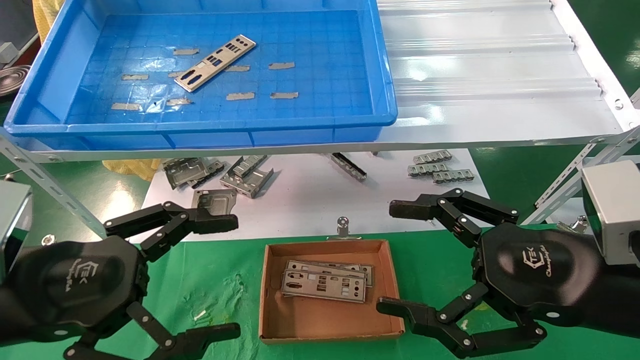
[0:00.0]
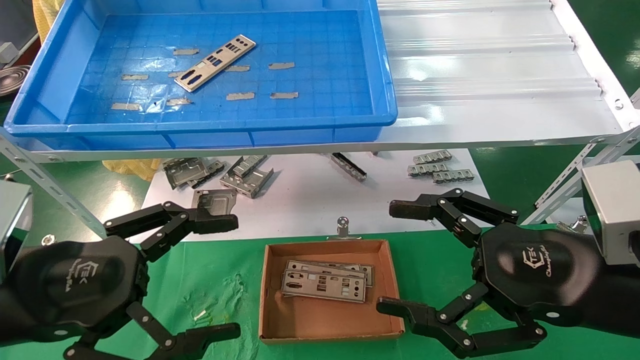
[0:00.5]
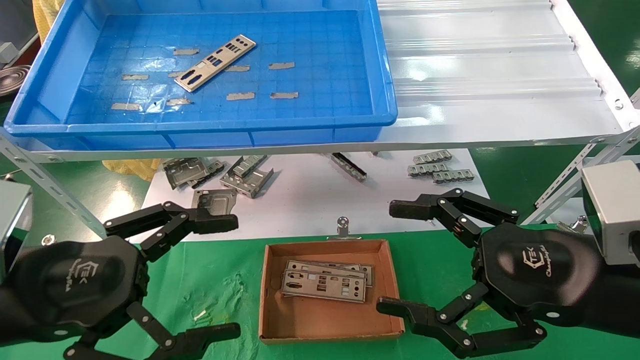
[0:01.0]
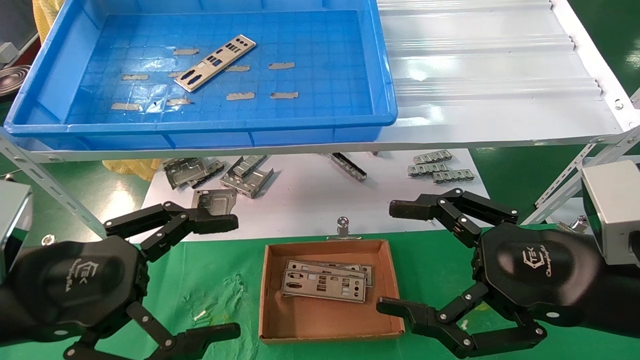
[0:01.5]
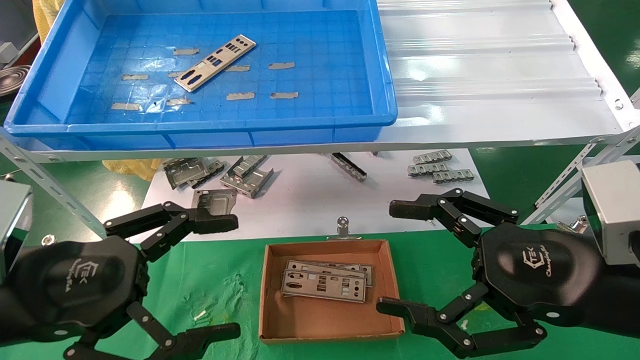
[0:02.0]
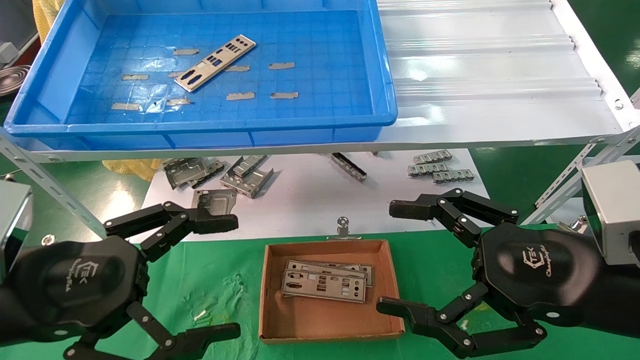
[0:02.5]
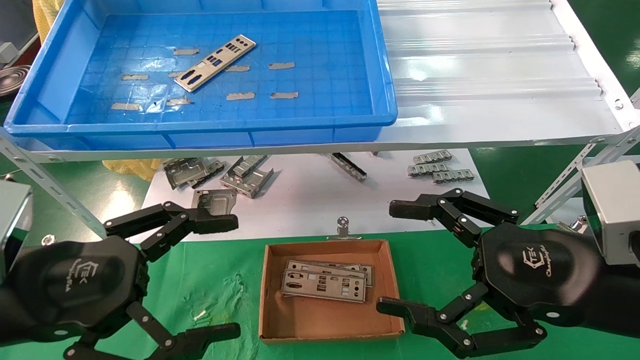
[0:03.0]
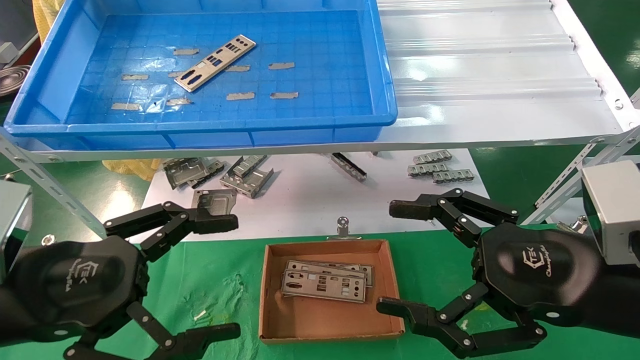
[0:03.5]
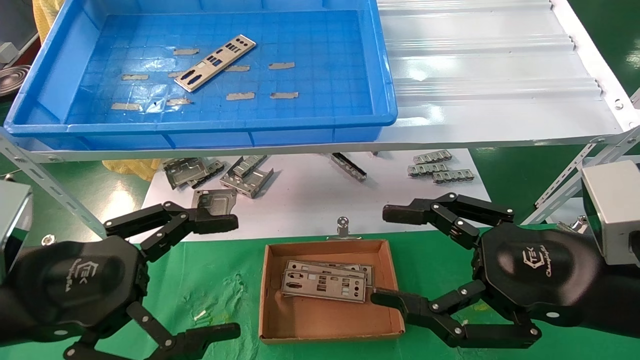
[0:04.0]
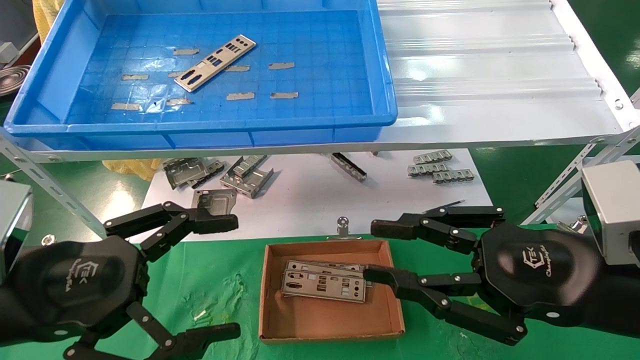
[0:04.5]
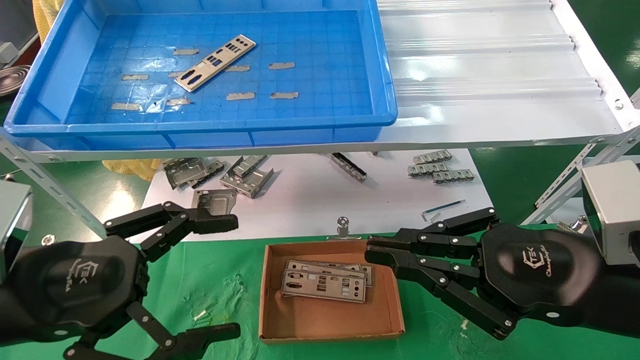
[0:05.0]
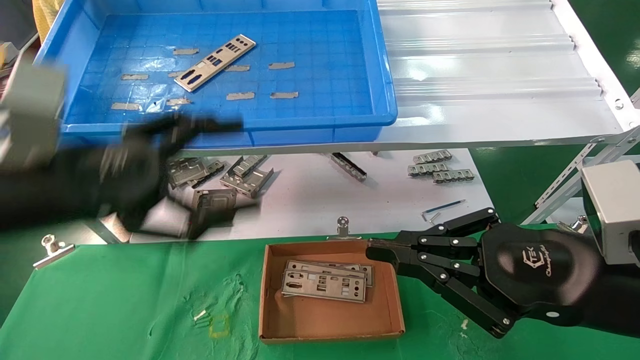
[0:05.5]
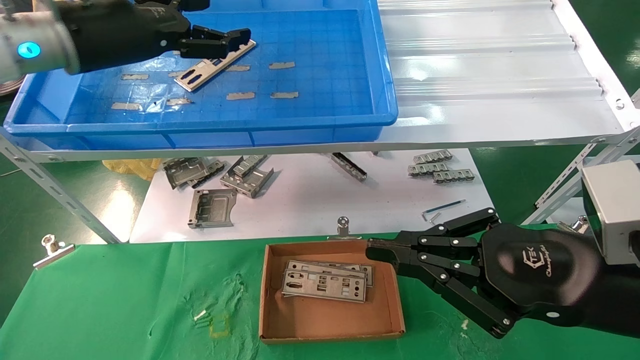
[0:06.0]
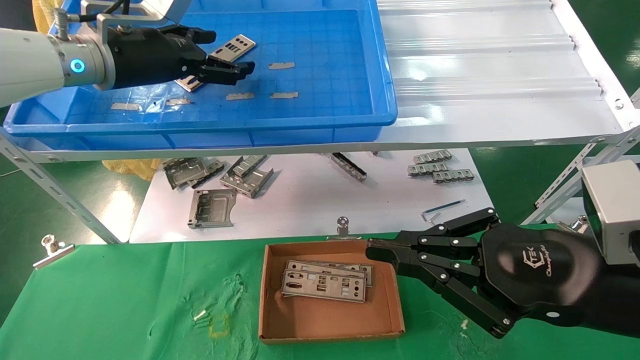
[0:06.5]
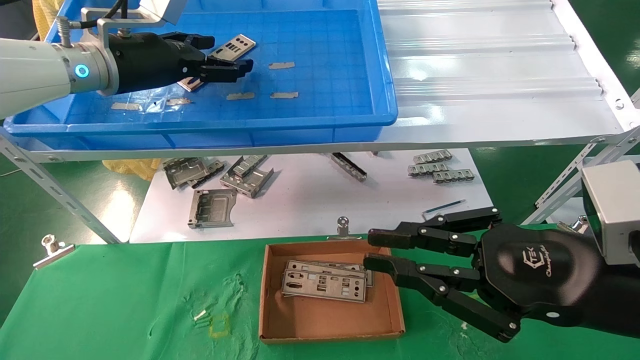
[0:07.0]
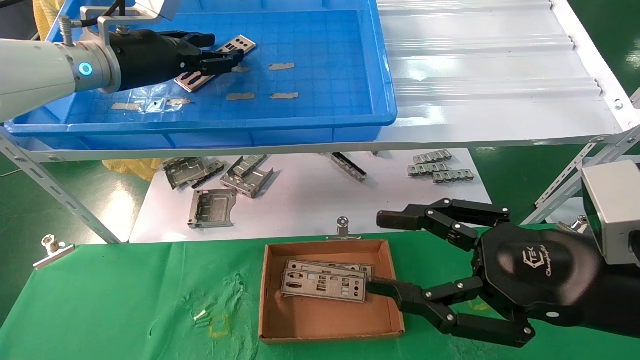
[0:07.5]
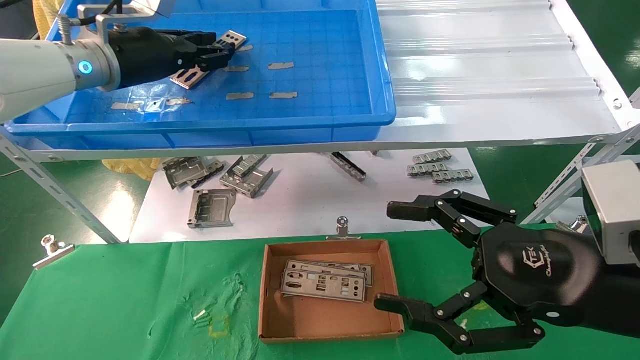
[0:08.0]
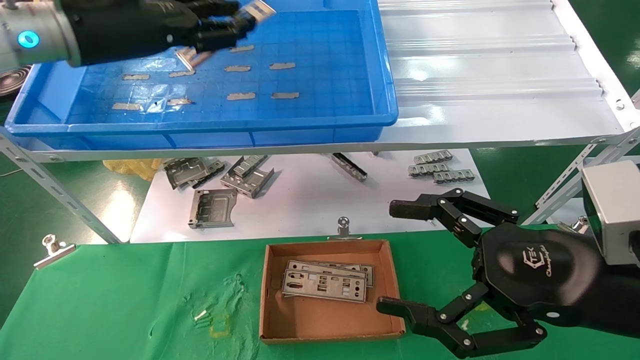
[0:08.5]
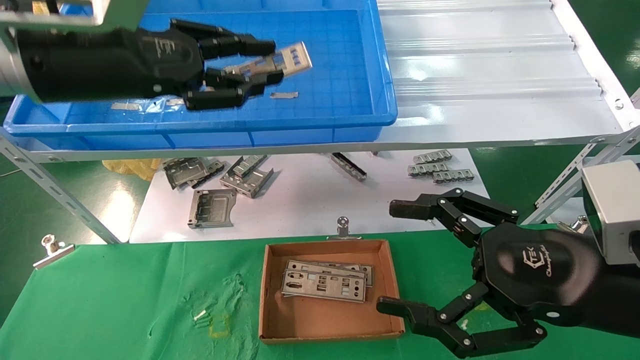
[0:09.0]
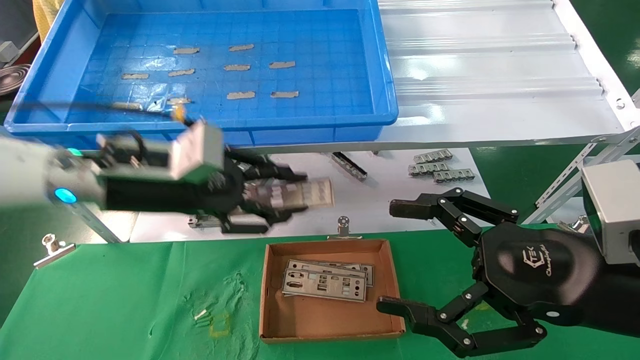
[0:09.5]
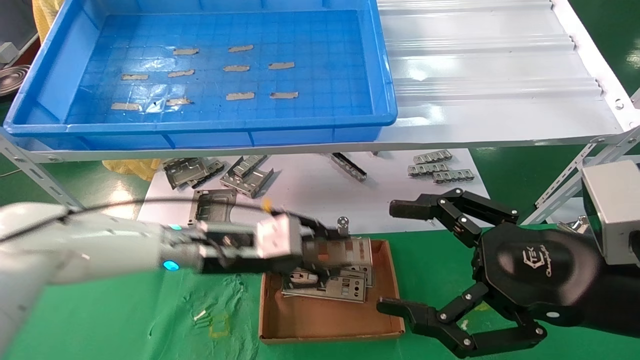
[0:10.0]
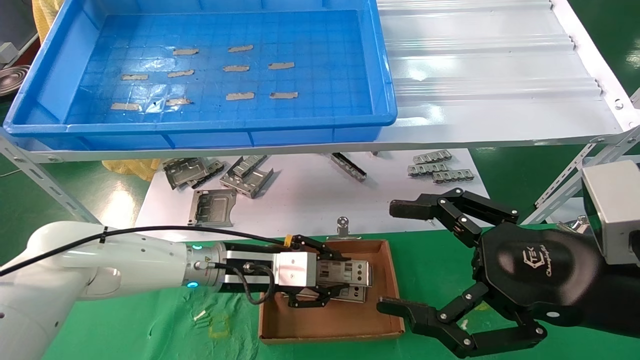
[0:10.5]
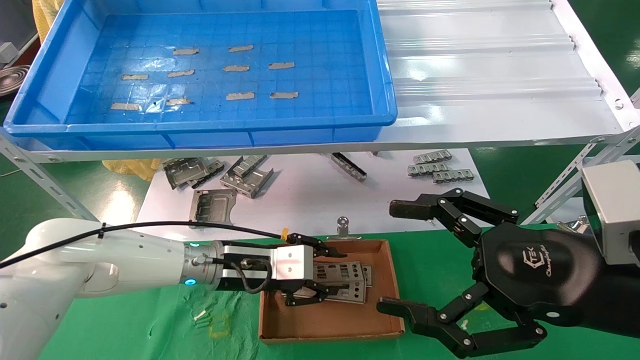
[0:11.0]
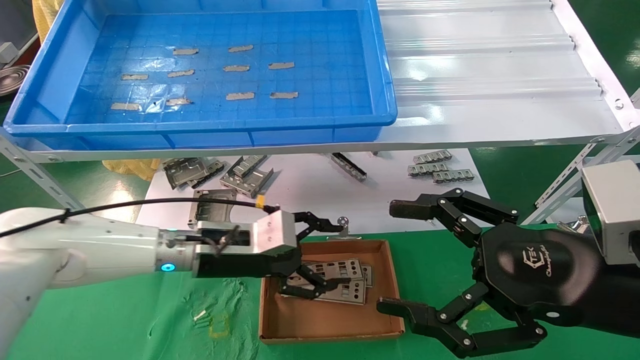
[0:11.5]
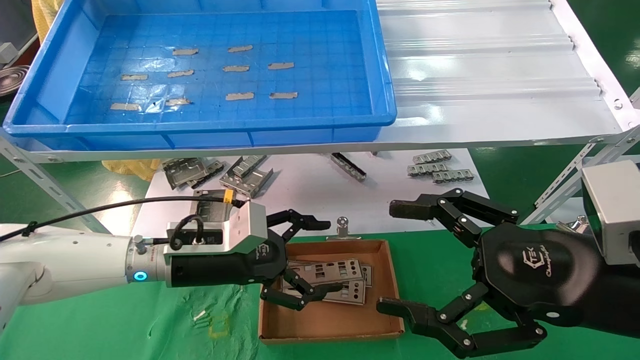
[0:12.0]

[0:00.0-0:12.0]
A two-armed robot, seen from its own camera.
Task of the whole recording: pick up the parts on the tray and put them in the cardboard box.
Step, 0:06.0 to 0:07.5: Pick up the IO bracket from the container box.
Step, 0:08.0 to 0:11.0: Place the IO bracket into the ingredient slot.
0:00.0 to 0:04.0: Neither gripper changes place.
0:04.0 to 0:06.0: The right gripper closes. The left gripper goes approximately 30 cm forward and upward.
0:06.0 to 0:08.0: The left gripper moves forward, roughly 5 cm, and closes its fingers. Meanwhile the right gripper opens its fingers.
0:08.0 to 0:10.0: The left gripper goes approximately 25 cm downward and to the right.
0:10.0 to 0:12.0: The left gripper opens its fingers.

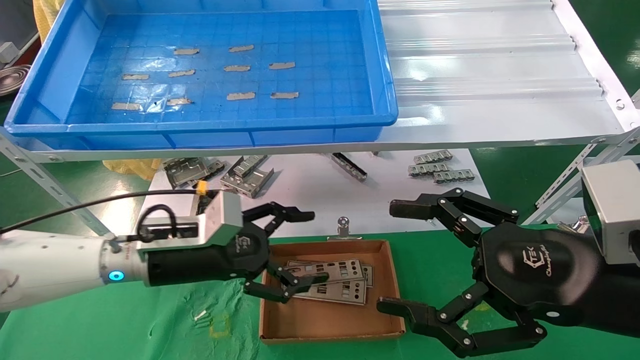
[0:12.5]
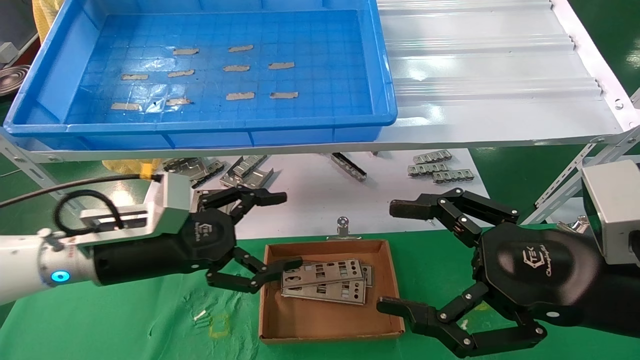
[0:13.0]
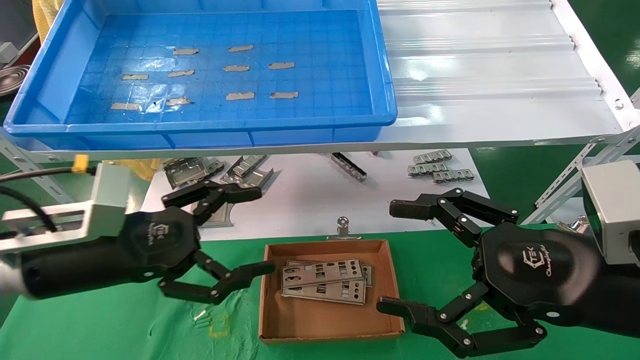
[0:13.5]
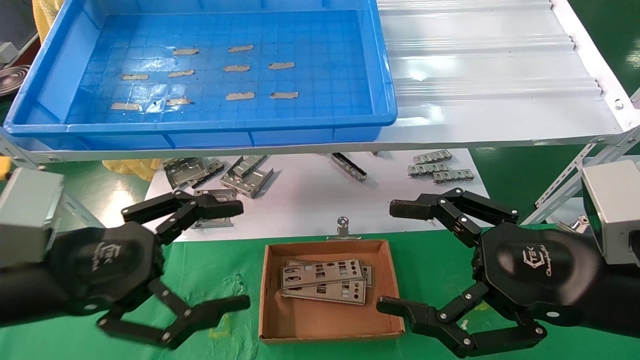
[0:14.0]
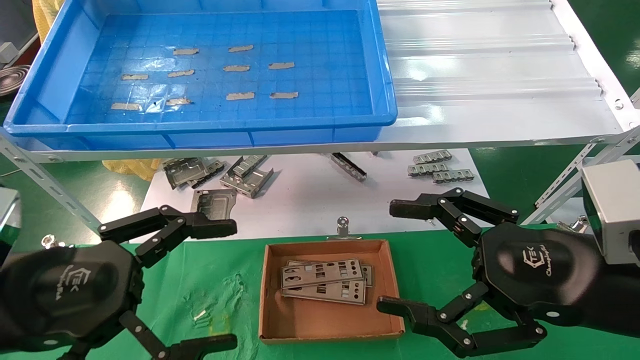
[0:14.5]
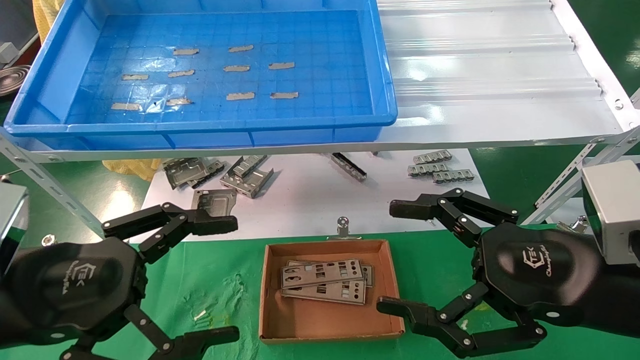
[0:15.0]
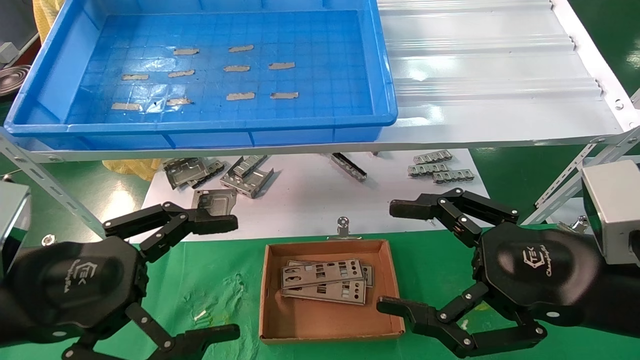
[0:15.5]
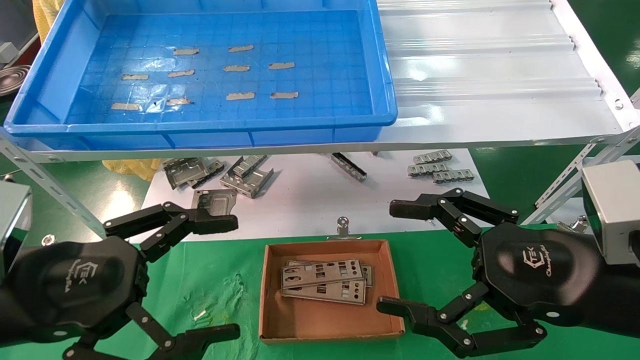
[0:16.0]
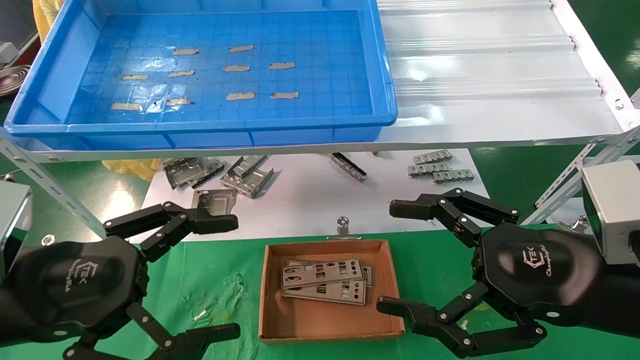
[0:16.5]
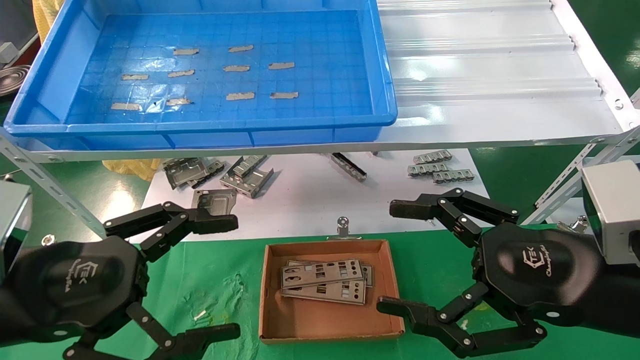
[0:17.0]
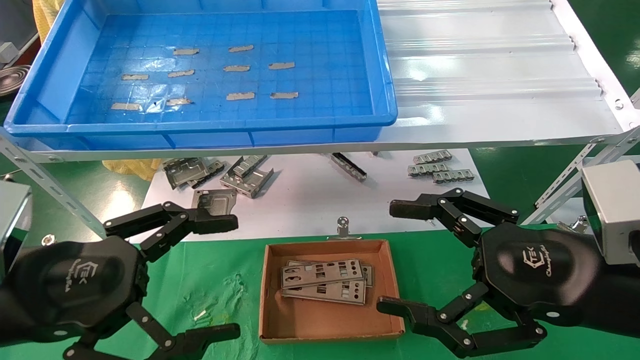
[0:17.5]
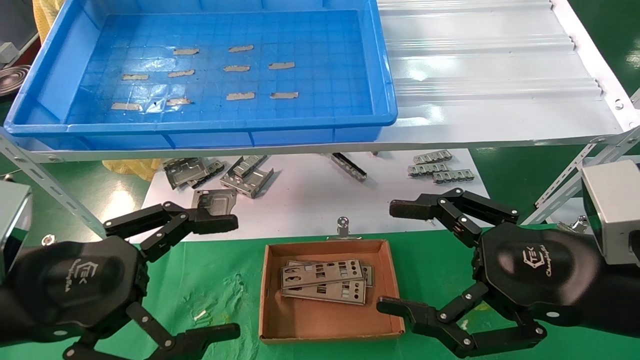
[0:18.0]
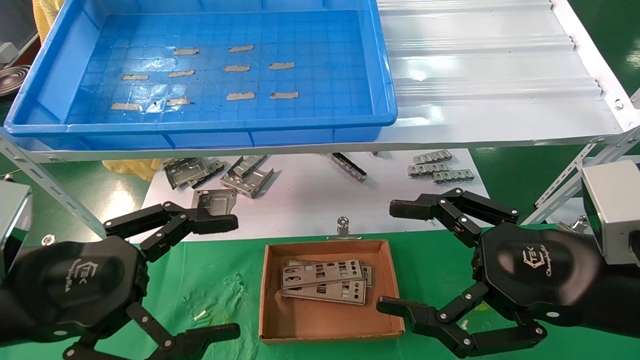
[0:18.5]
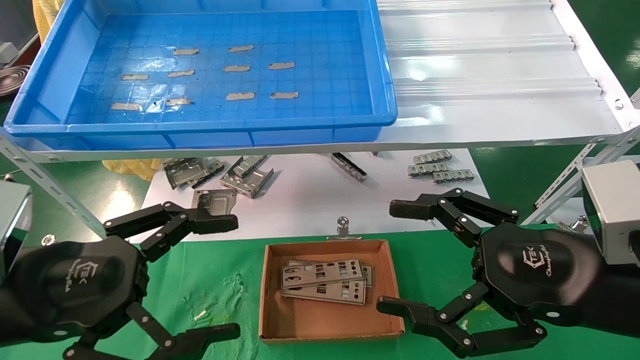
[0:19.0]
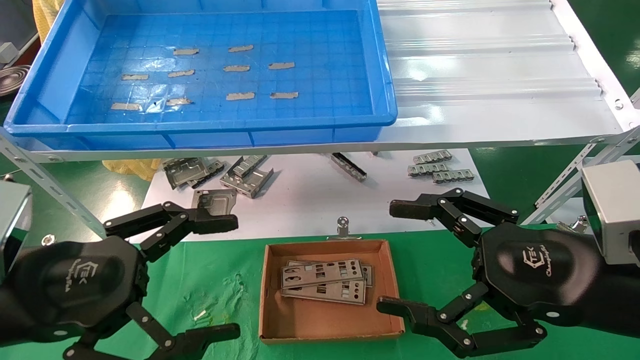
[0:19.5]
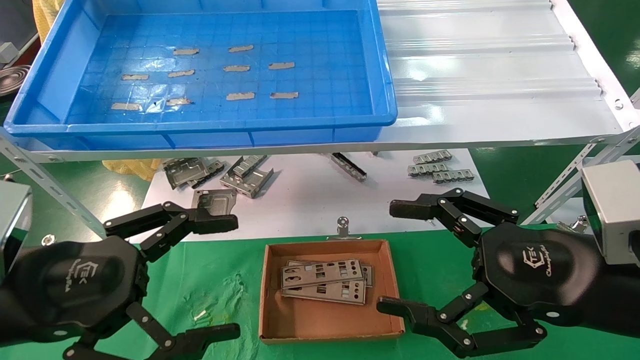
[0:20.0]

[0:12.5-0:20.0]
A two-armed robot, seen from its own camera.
Task of the whole recording: pick up the parts on the tray and put them in the cardboard box.
0:12.5 to 0:14.5: The left gripper heads backward and to the left, covering roughly 20 cm.
0:14.5 to 0:20.0: The two grippers keep their place.
